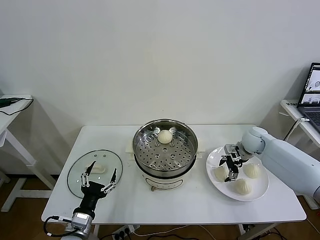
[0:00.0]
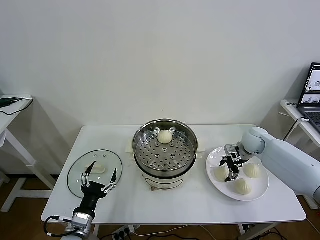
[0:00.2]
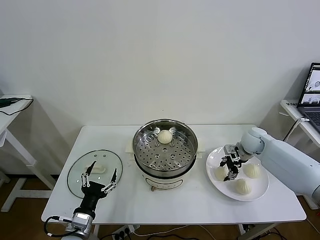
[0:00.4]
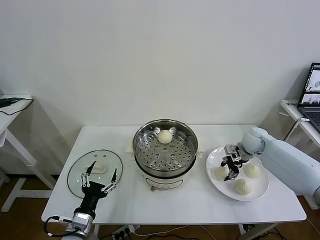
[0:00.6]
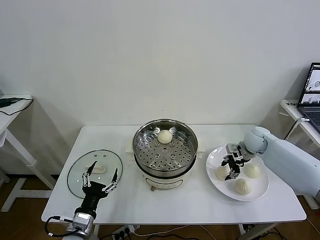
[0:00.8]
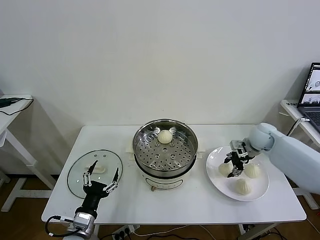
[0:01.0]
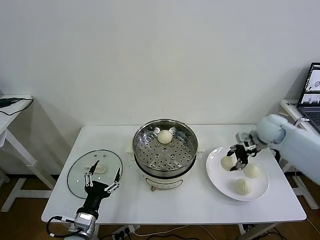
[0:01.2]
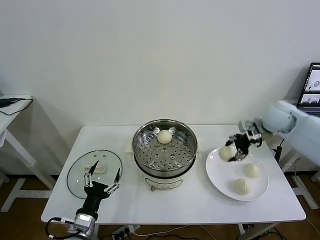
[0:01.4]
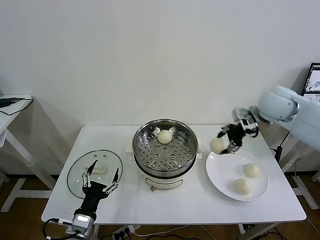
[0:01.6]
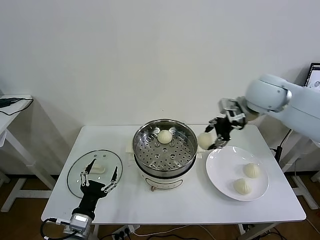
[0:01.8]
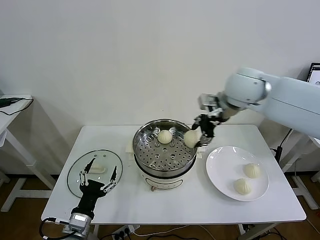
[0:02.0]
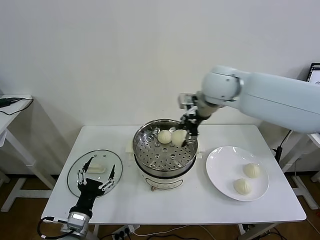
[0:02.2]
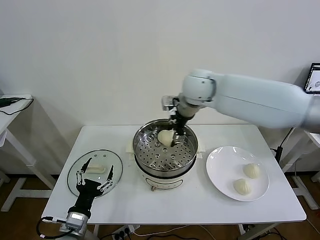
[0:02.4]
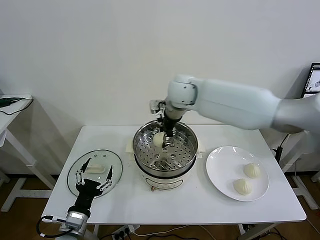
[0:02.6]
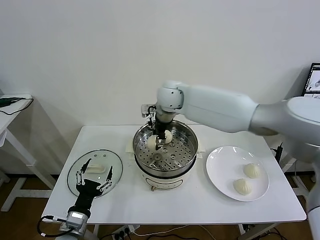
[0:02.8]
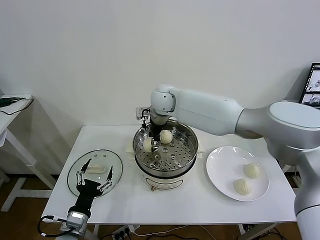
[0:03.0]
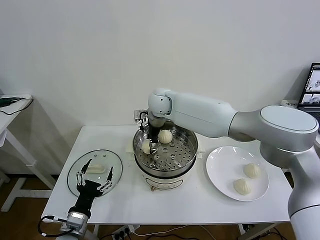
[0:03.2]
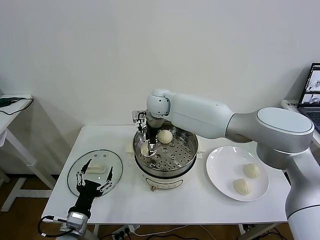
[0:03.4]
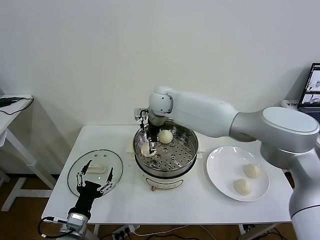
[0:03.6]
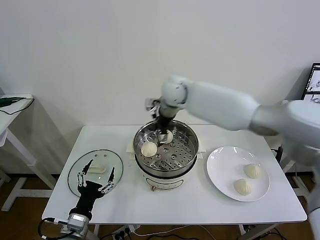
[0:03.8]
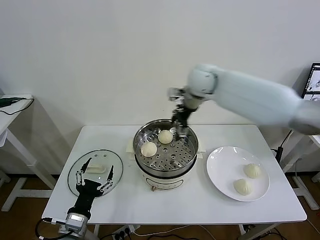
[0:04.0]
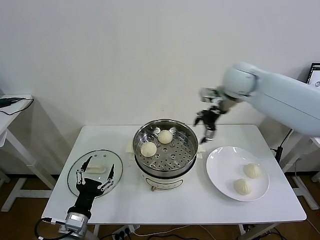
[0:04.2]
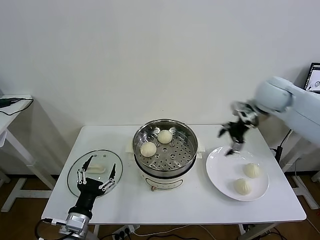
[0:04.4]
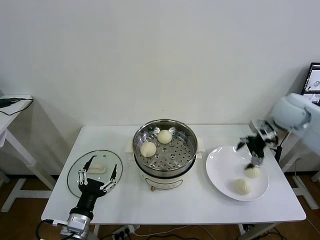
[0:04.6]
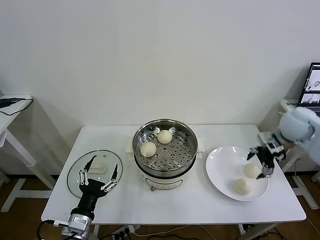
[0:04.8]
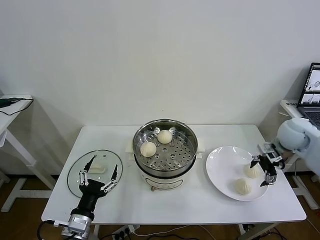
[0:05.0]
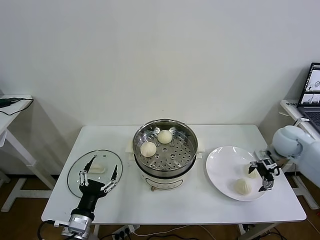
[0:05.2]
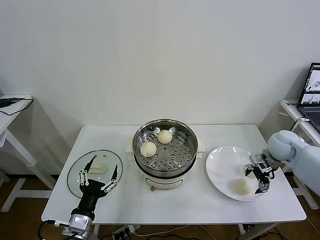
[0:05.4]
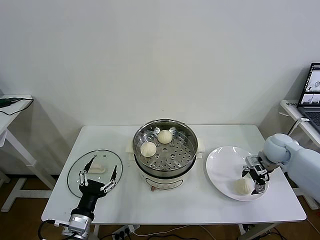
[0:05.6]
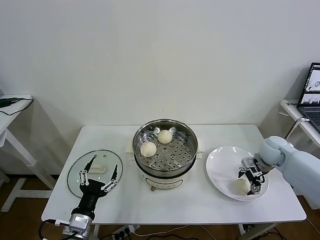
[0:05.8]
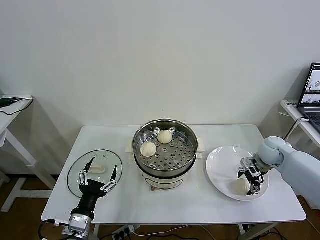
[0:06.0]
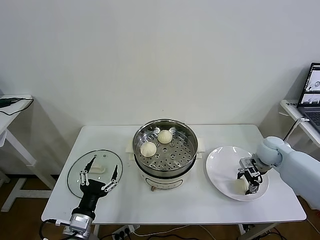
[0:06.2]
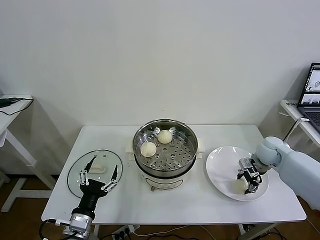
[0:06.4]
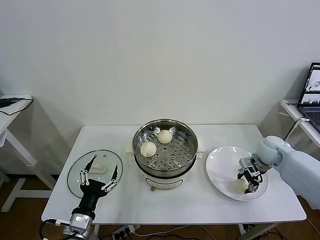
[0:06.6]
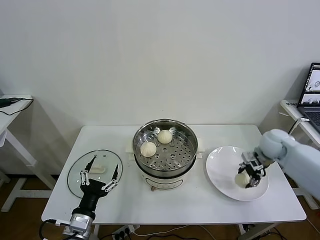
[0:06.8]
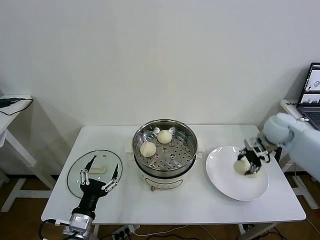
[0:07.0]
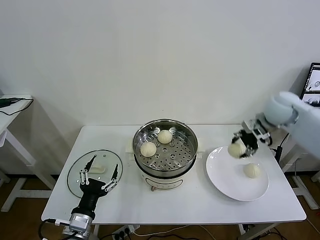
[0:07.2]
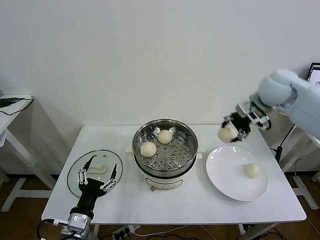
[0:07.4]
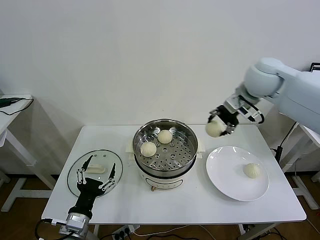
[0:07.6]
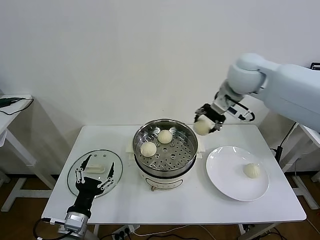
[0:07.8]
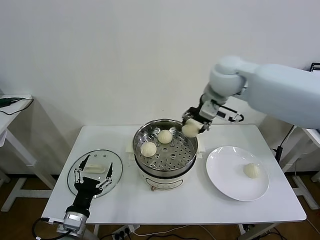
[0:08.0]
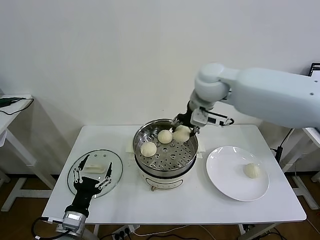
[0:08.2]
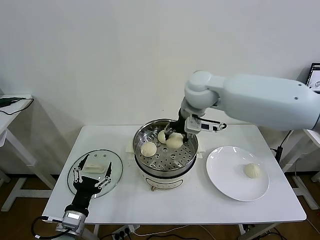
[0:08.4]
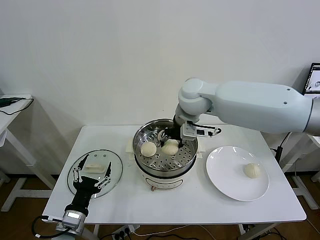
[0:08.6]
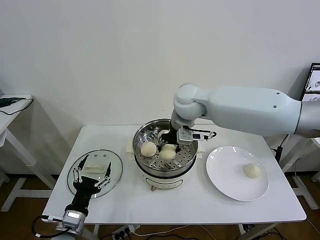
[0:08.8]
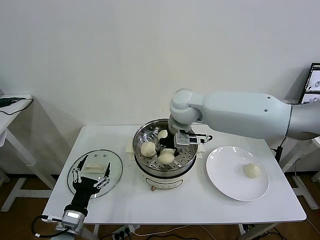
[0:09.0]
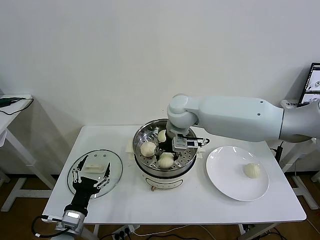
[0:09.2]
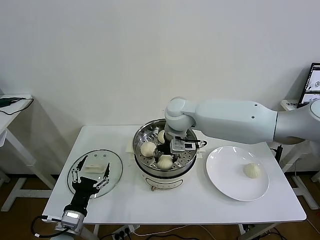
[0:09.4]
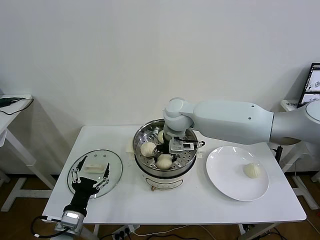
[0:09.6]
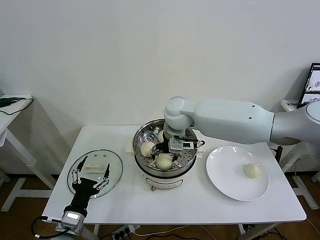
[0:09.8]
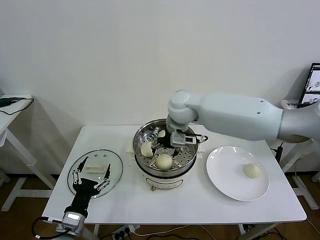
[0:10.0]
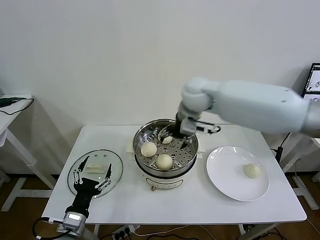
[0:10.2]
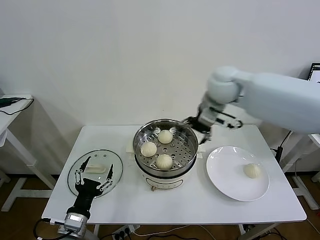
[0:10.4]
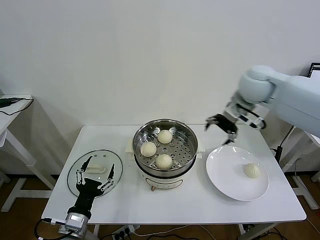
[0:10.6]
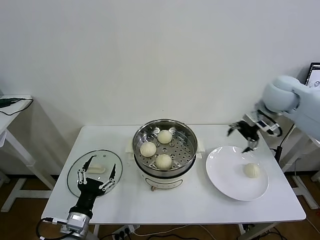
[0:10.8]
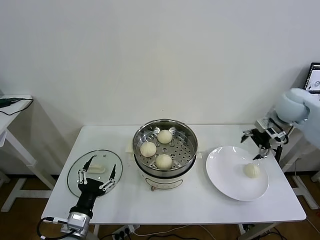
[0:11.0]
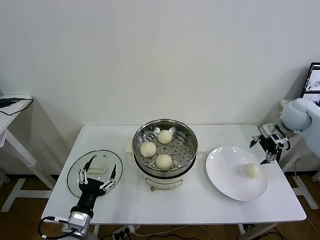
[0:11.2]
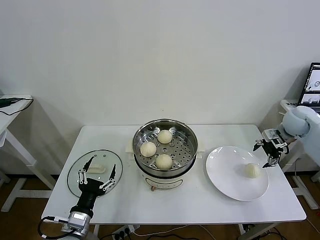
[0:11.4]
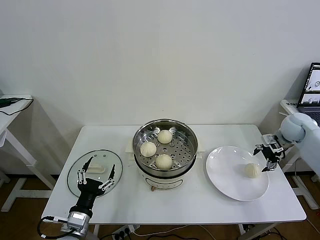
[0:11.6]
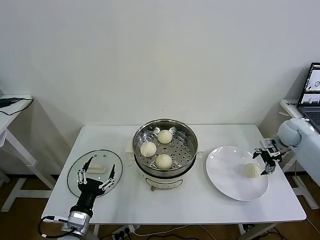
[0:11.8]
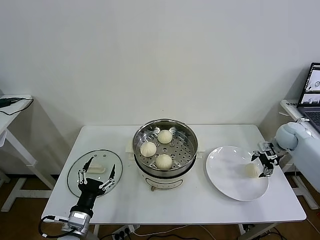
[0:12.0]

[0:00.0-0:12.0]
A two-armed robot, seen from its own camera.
Task of the whole recording: take steamed baozi put them in steamer then cover it.
Step, 0:00.6 to 0:03.4: Place the baozi on the steamer with right gripper.
Step, 0:03.6 to 0:06.2: Grasp the baozi in the plate with right gripper.
Step, 0:06.6 to 0:09.8: Place the baozi on the steamer with right gripper.
0:00.0 to 0:01.6: The right gripper is displaced upward by some 25 cm, and closes.
0:01.6 to 0:03.0: The right gripper travels to the left by approximately 30 cm.
0:03.0 to 0:04.4: The right gripper is displaced to the right by about 35 cm, and opens.
0:04.4 to 0:06.0: The right gripper goes about 20 cm downward.
0:06.0 to 0:07.6: The right gripper is displaced upward and to the left by approximately 30 cm, and closes.
0:07.6 to 0:09.0: The right gripper moves to the left and downward, some 20 cm.
0:09.0 to 0:10.4: The right gripper shifts approximately 15 cm to the right and upward, and opens.
0:10.4 to 0:12.0: The right gripper heads to the right and downward, covering about 35 cm.

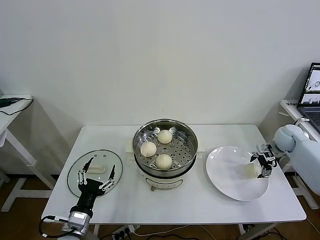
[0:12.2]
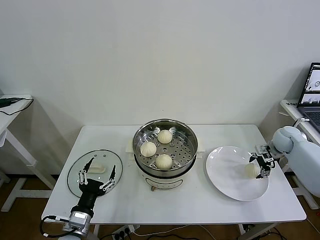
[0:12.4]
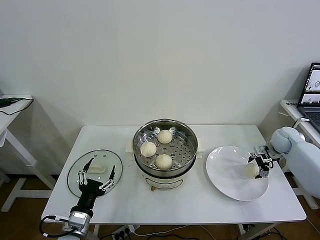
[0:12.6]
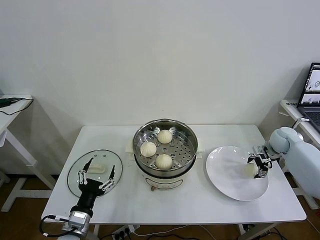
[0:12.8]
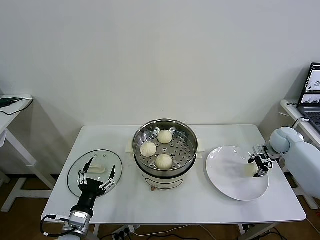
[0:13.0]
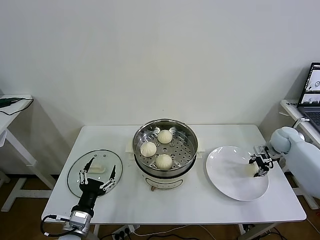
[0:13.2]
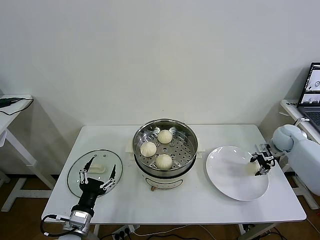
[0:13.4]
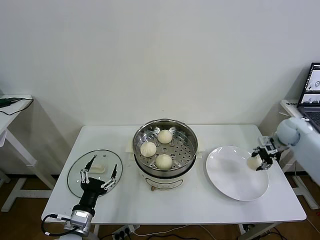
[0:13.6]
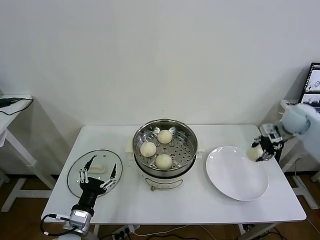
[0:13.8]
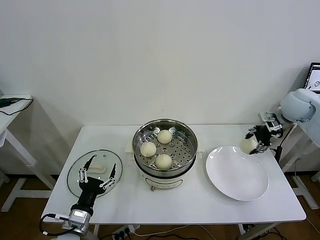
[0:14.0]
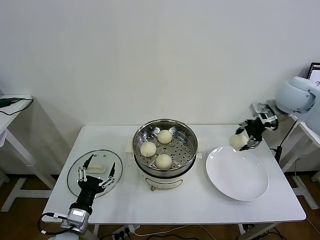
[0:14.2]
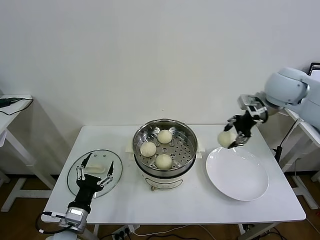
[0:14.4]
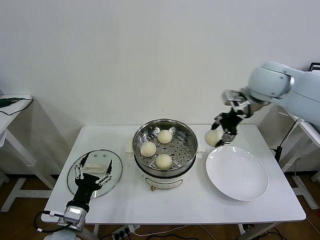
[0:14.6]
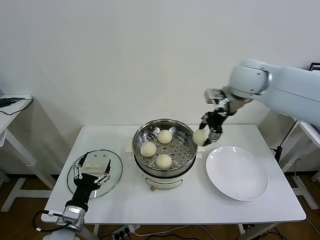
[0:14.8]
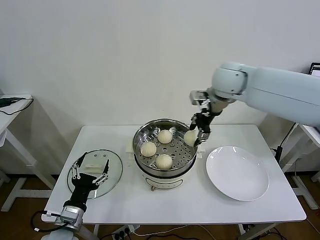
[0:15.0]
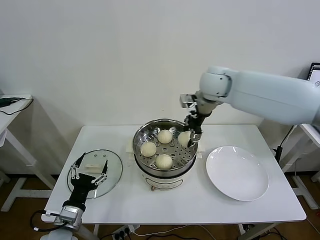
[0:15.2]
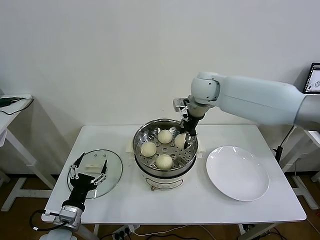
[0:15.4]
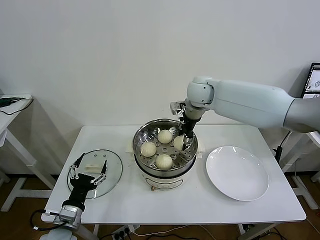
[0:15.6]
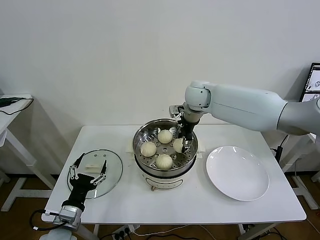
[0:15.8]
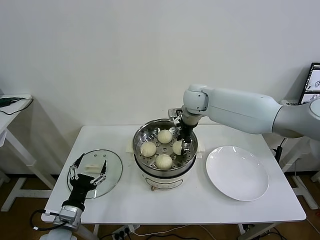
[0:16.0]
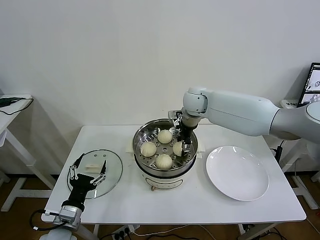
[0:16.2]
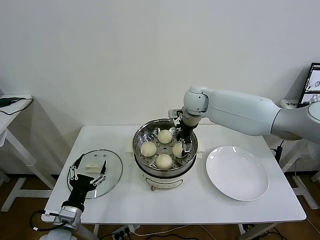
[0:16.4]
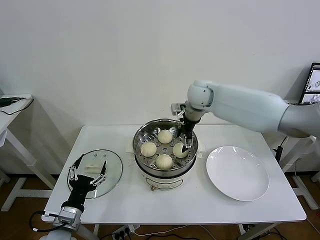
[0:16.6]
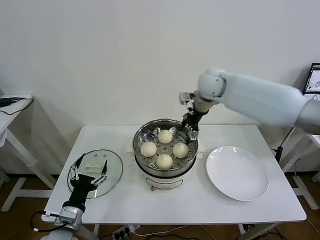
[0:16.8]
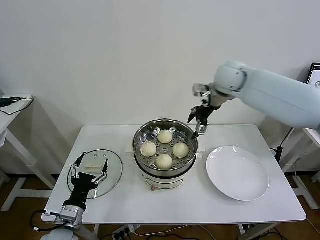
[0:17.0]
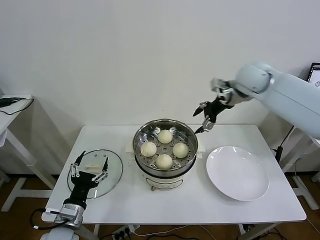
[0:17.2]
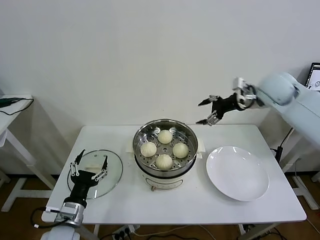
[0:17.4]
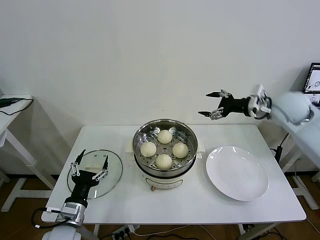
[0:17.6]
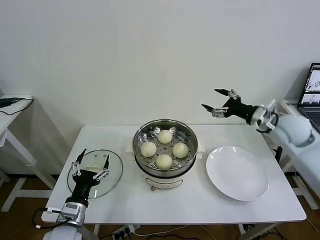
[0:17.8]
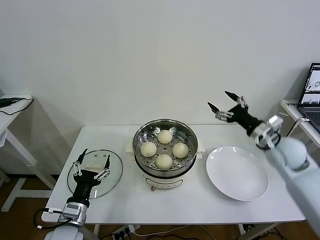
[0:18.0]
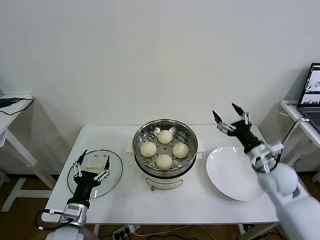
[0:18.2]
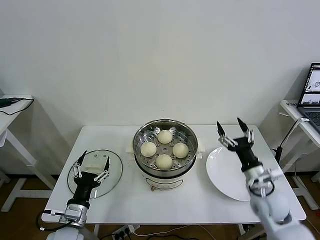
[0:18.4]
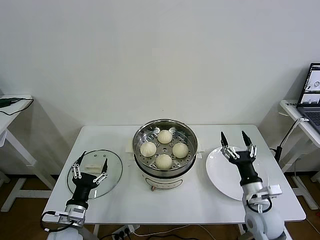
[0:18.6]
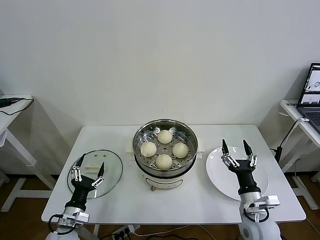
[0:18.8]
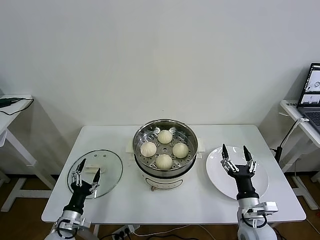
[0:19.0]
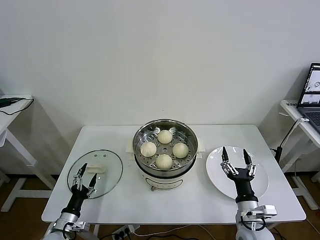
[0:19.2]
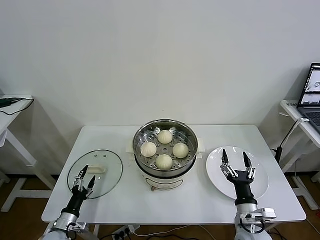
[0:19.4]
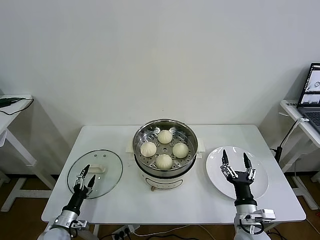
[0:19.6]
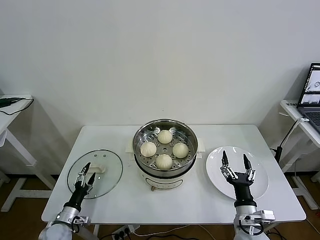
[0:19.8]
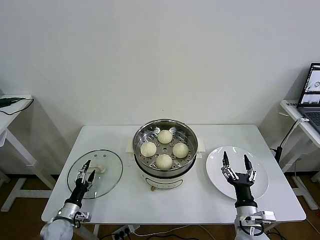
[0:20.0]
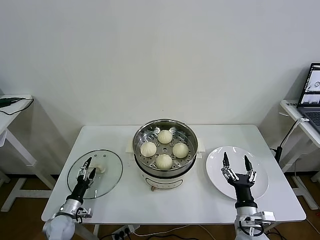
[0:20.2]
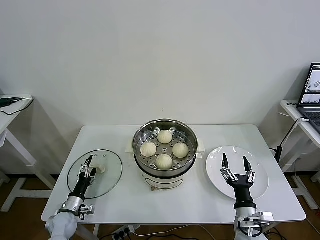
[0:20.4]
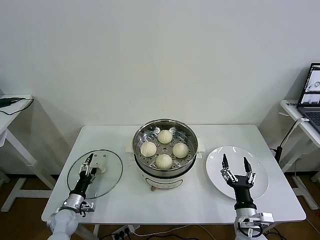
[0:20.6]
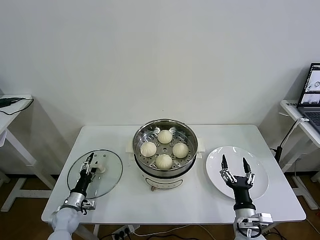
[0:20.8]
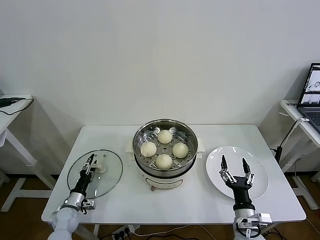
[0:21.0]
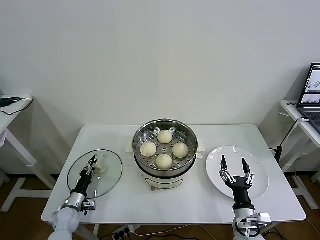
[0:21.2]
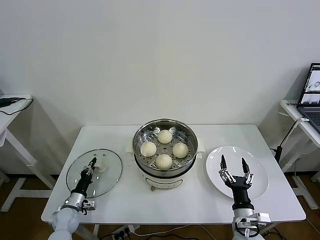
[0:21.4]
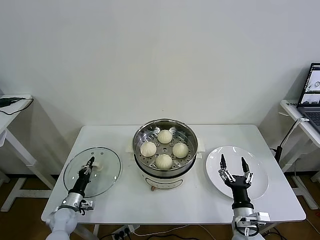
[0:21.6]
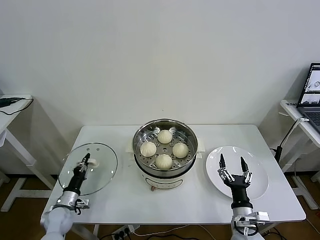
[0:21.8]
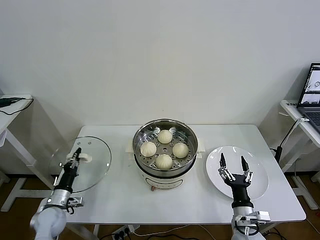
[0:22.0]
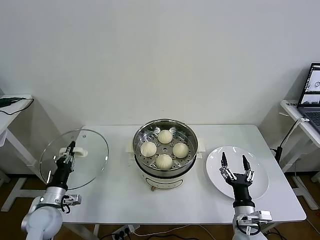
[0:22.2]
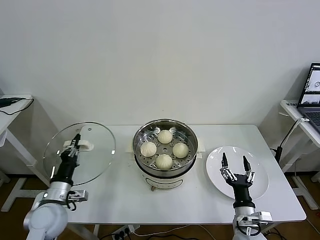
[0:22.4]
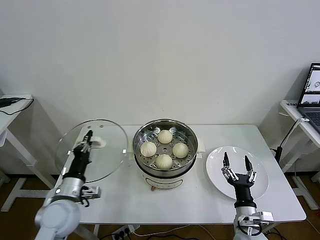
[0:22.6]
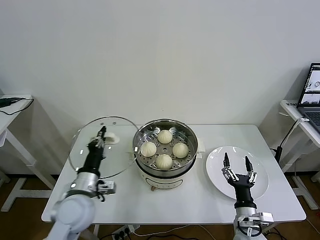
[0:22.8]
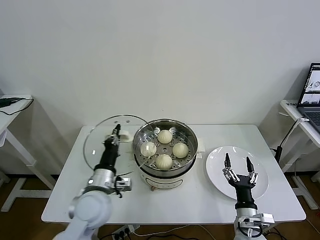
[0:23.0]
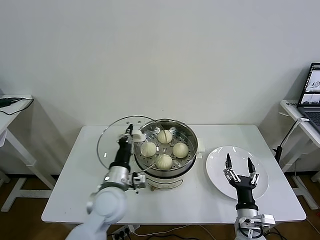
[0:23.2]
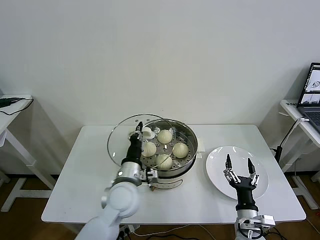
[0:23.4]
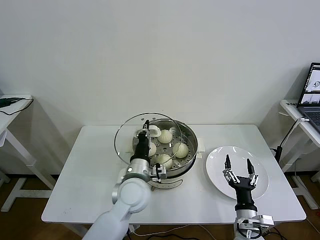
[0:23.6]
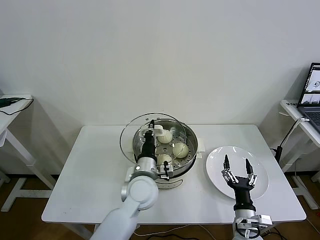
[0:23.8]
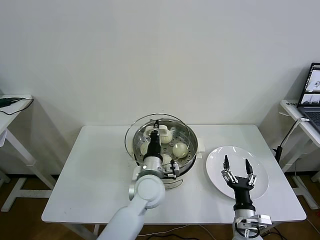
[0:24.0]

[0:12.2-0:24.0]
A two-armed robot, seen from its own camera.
Task of the whole recording: take steamed baozi put them in steamer then cover it.
Step, 0:13.4 to 0:16.4: Place the baozi on the steamer with right gripper.
Step, 0:16.6 to 0:21.4: Grasp the pot lid with left gripper.
0:12.2 to 0:13.6: The right gripper closes up.
0:13.6 to 0:15.2: The right gripper shifts some 35 cm to the left and upward.
0:15.2 to 0:16.6: The right gripper goes roughly 5 cm downward, and opens up.
0:16.6 to 0:18.2: The right gripper heads backward, to the right and downward, covering about 35 cm.
0:18.2 to 0:19.6: The left gripper moves downward and to the left, some 20 cm. The right gripper travels backward, downward and to the left by about 20 cm.
0:19.6 to 0:21.0: The left gripper goes about 10 cm forward.
0:21.0 to 0:22.6: The left gripper shifts some 20 cm upward, and closes its fingers.
0:22.6 to 0:24.0: The left gripper travels to the right by approximately 25 cm.
